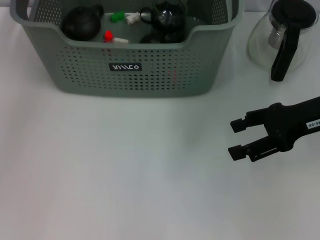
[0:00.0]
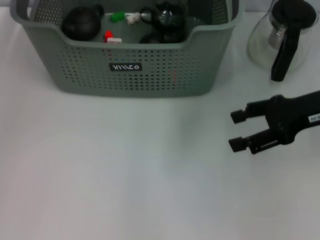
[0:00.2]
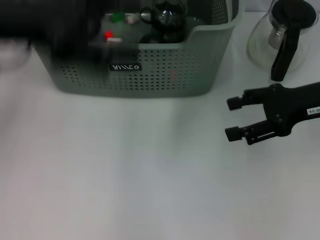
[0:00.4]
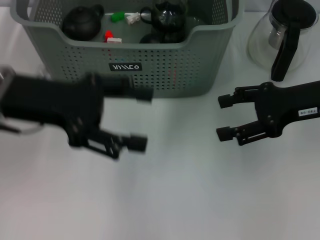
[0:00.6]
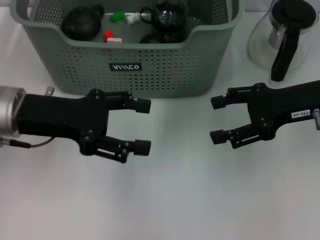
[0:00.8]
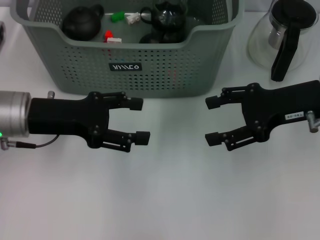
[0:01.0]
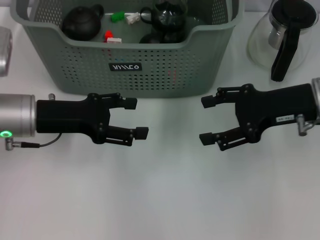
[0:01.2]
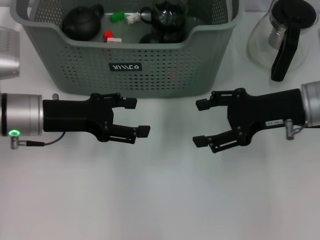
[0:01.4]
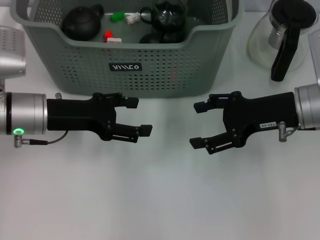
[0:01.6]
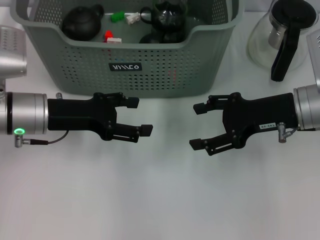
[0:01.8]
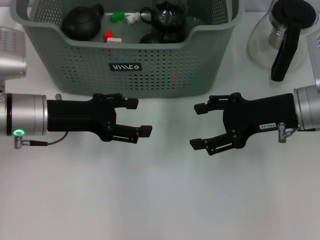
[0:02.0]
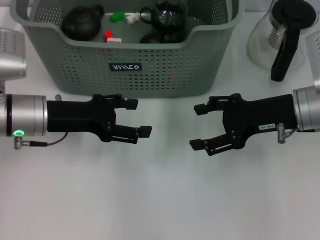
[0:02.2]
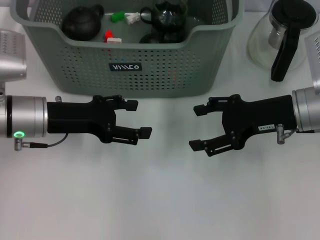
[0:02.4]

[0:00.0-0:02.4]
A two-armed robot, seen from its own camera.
Task of the whole recording: pick up the teacup on the table and place it into the storage bin, pick up the block on the table and place it into the storage bin.
0:00.0 to 0:01.2: The left gripper moves downward and backward, roughly 20 cm.
0:01.2 to 0:02.4: The grippers move only a little.

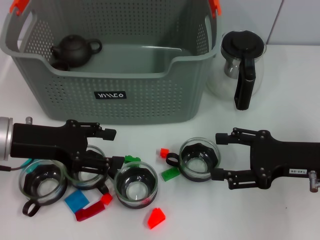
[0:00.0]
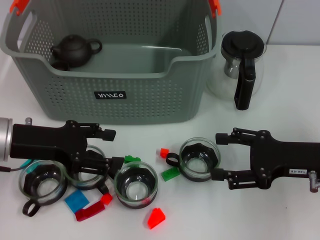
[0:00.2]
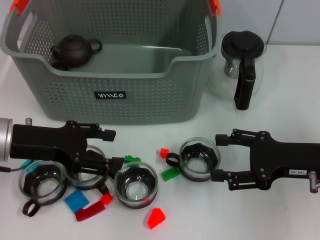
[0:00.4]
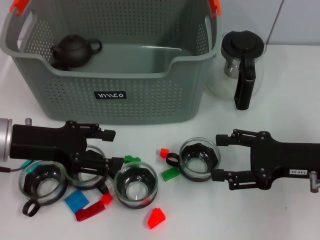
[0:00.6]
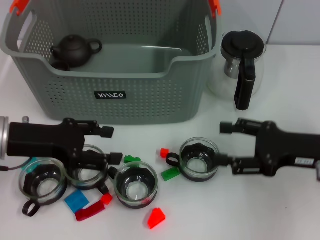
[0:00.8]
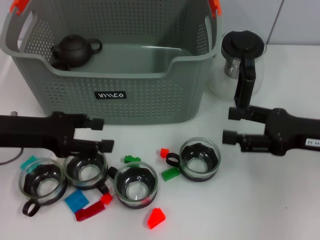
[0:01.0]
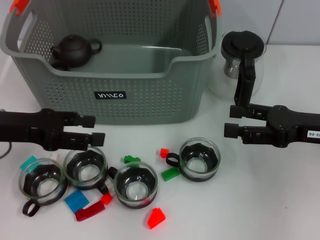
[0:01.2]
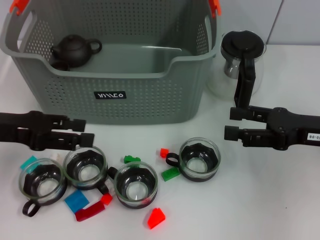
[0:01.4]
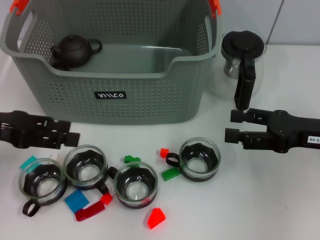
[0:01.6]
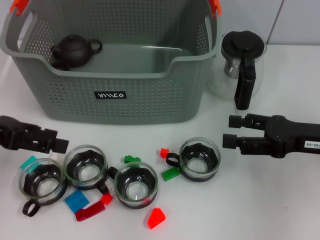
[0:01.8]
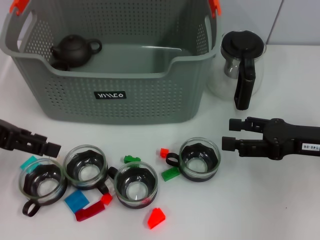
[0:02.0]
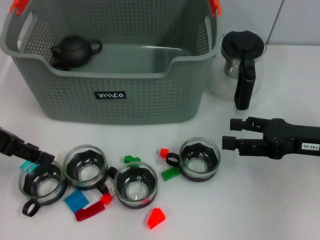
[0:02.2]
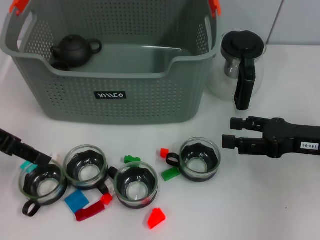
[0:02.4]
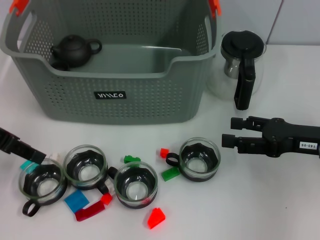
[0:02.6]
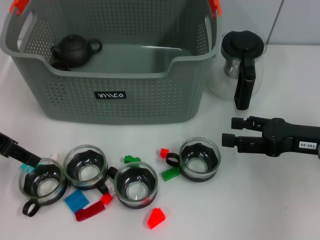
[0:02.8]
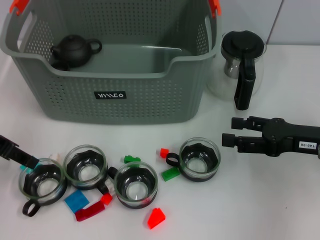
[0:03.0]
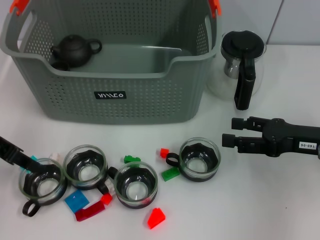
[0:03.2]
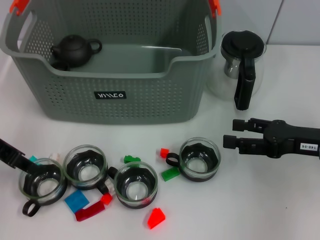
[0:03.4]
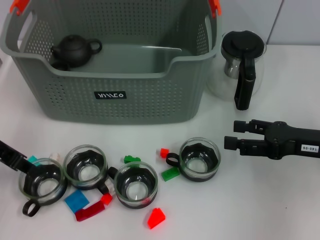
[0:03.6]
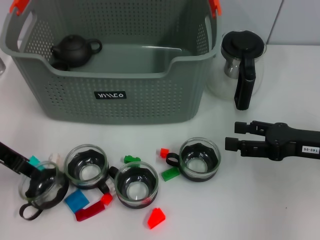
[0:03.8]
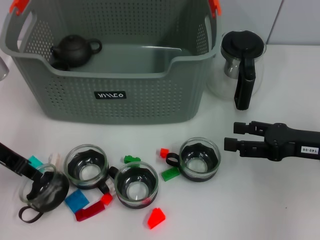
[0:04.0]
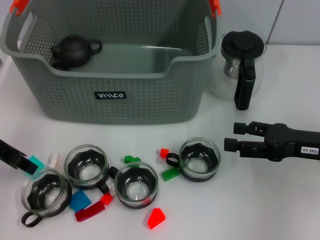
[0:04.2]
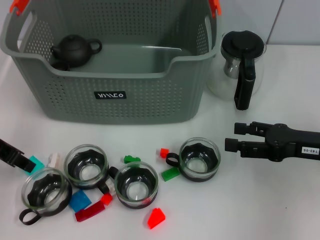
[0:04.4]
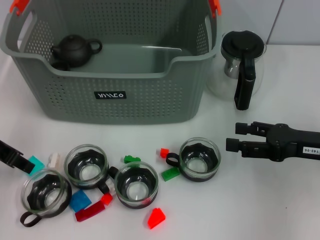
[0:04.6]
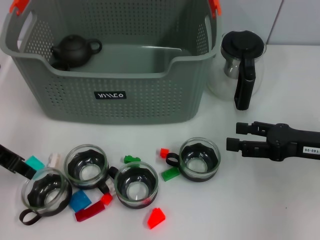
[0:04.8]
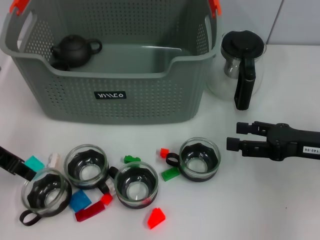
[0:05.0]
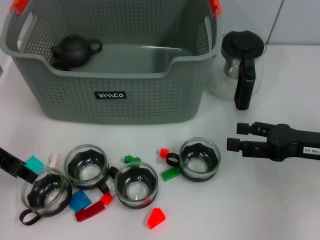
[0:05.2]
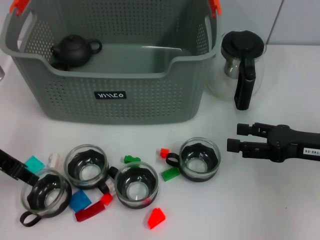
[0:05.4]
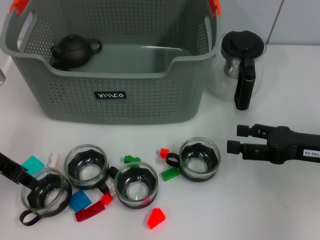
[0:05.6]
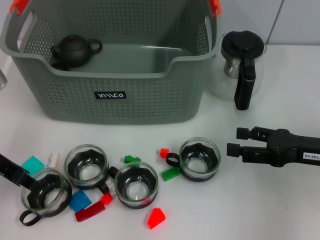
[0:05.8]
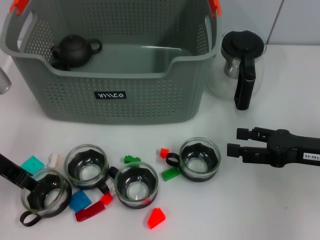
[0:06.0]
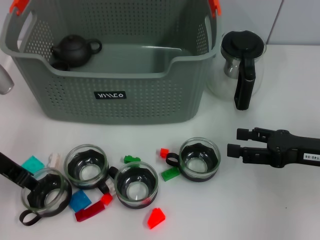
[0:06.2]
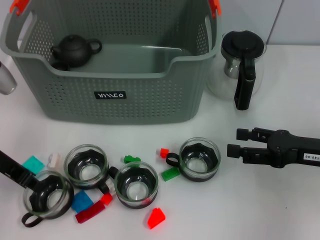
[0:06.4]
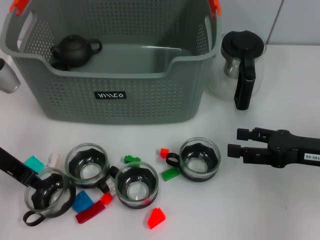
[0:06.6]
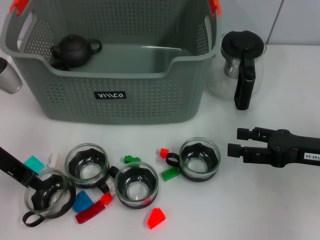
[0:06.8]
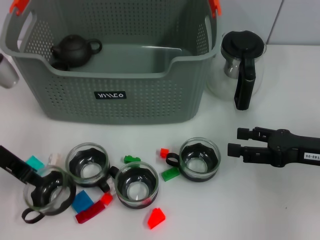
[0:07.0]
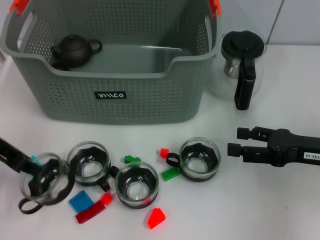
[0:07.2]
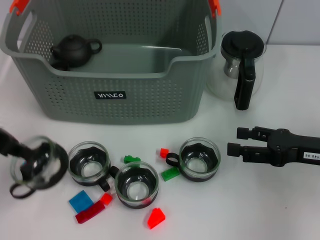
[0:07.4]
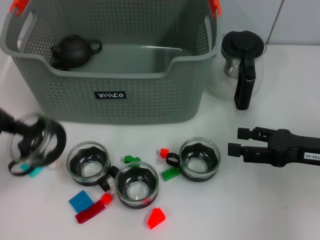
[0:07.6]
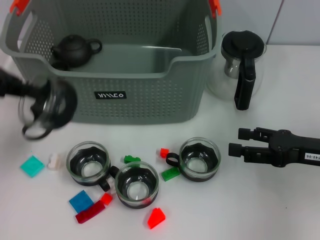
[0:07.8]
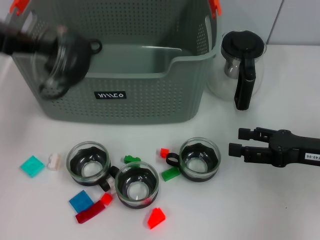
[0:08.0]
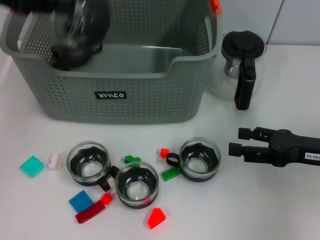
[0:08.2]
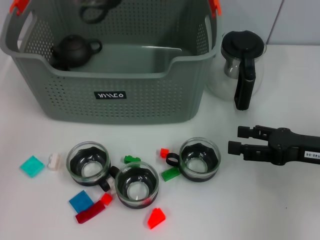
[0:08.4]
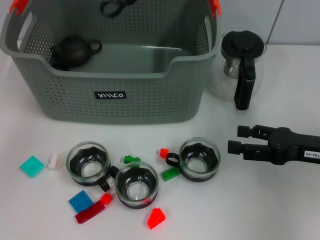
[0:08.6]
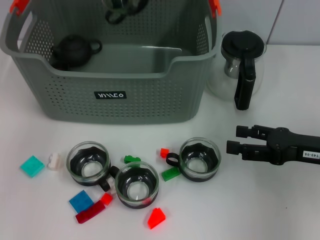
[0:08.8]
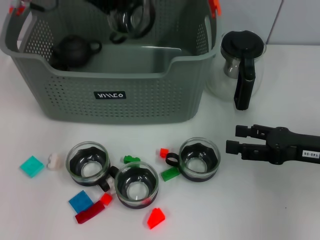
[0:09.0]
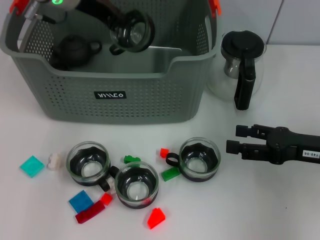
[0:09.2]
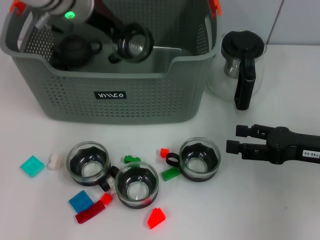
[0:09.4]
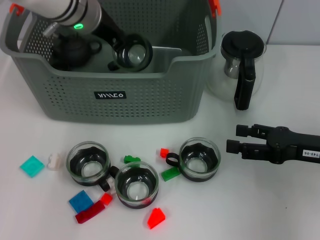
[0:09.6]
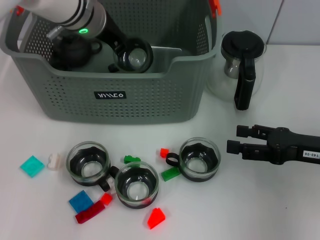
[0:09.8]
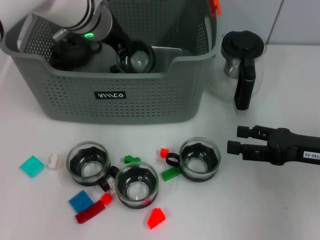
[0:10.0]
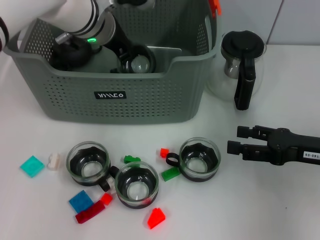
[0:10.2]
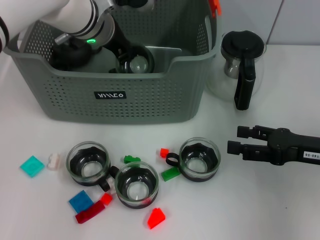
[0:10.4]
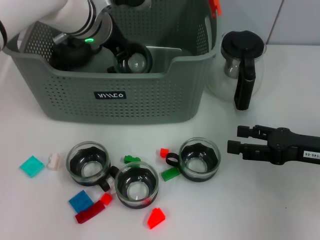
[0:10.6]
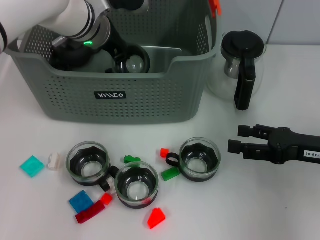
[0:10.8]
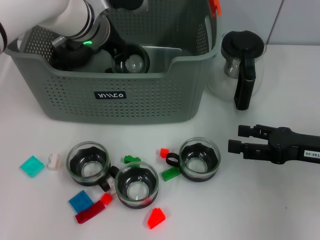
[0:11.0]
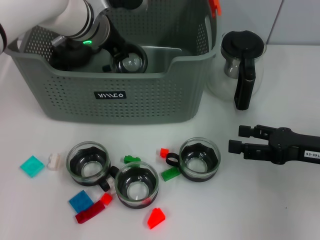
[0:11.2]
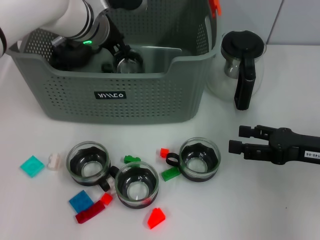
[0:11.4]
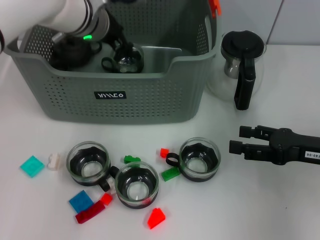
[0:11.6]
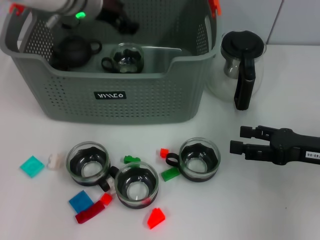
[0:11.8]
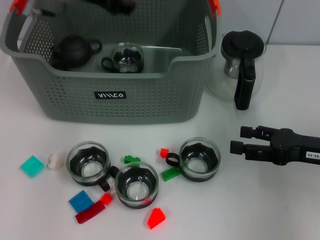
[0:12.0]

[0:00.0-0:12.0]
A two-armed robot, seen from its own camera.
Task of the whole recording: pick up the teacup on the table and place it into the storage bin, pick up the block on the table and place it into the storage bin.
Step, 0:00.0 to 0:07.0: Grasp the cup with left gripper.
Step, 0:07.2 to 0:11.8: Place the cup in the storage box with left gripper.
0:00.0 to 0:01.6: The left gripper heads upward and to the left, covering about 10 cm.
0:03.0 to 0:04.4: The left gripper closes.
0:04.4 to 0:06.0: The grippers move only a little.
0:06.0 to 0:07.6: The left gripper goes roughly 10 cm upward.
0:07.6 to 0:09.0: The left gripper is displaced forward and to the right by about 20 cm.
0:09.0 to 0:10.4: The left gripper is displaced downward and to the right by approximately 10 cm.
0:10.4 to 0:12.0: The left gripper moves upward and to the left, some 10 cm, and opens up.

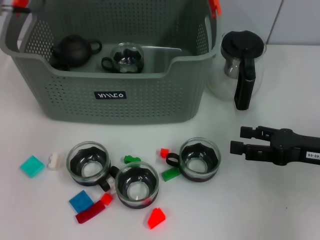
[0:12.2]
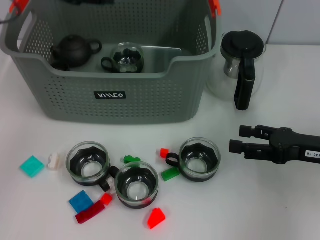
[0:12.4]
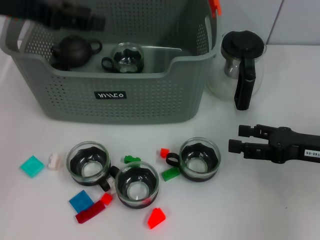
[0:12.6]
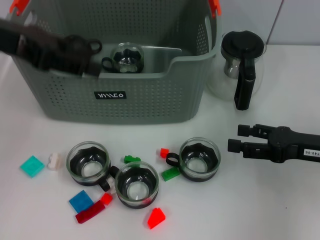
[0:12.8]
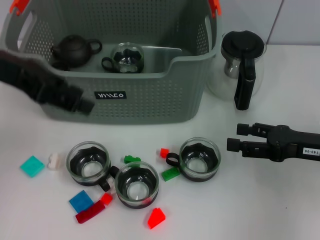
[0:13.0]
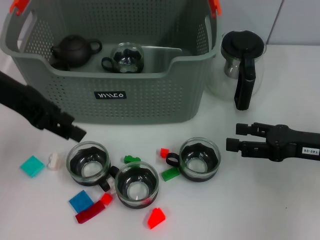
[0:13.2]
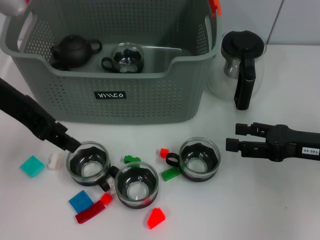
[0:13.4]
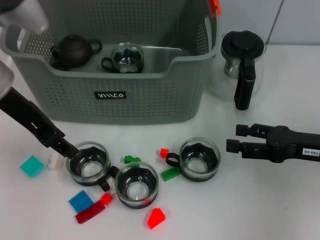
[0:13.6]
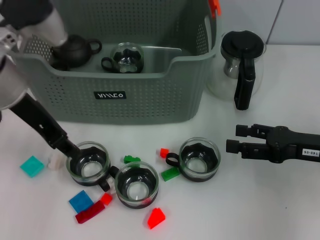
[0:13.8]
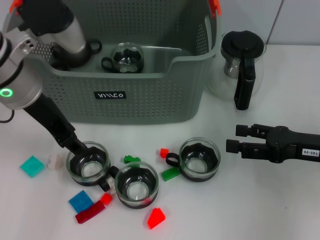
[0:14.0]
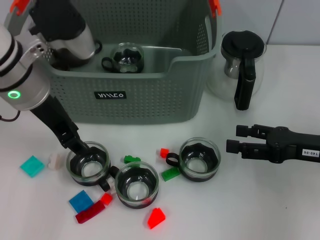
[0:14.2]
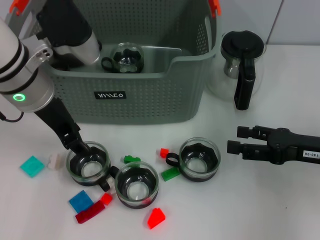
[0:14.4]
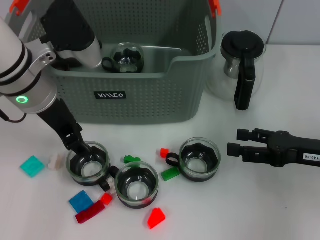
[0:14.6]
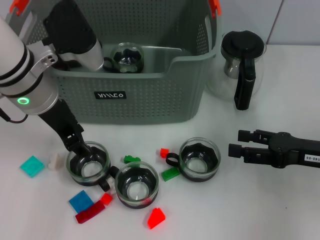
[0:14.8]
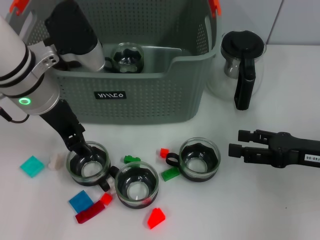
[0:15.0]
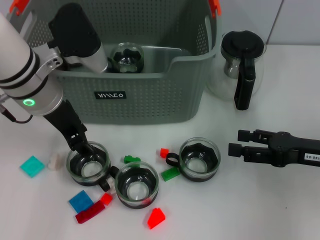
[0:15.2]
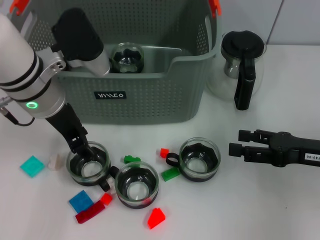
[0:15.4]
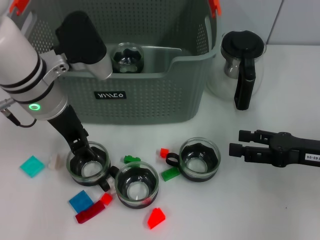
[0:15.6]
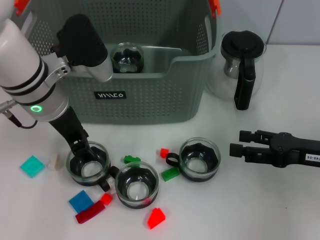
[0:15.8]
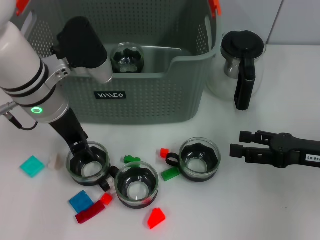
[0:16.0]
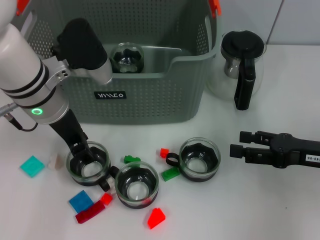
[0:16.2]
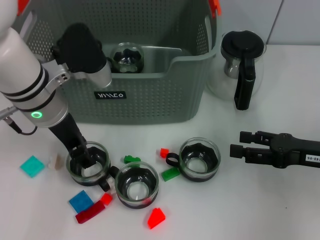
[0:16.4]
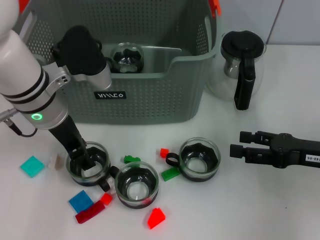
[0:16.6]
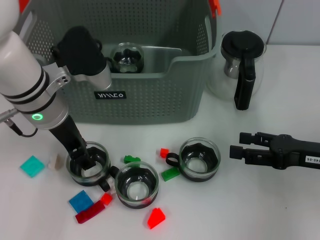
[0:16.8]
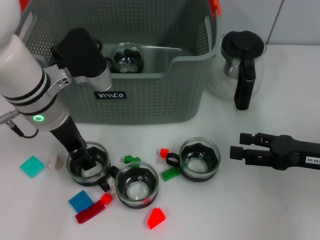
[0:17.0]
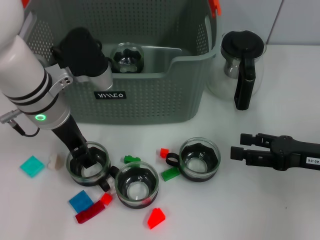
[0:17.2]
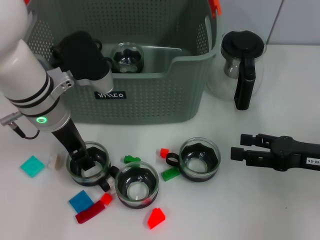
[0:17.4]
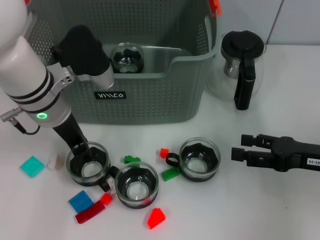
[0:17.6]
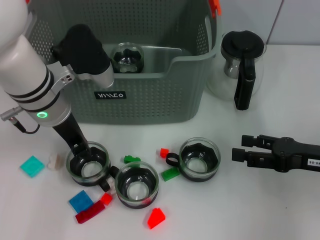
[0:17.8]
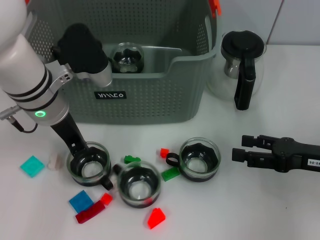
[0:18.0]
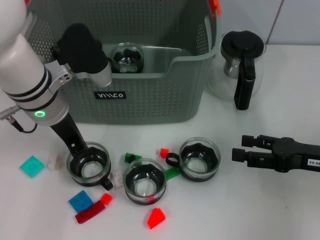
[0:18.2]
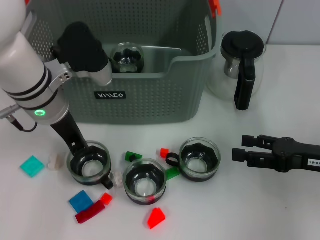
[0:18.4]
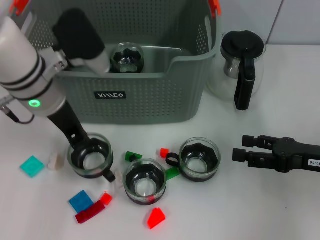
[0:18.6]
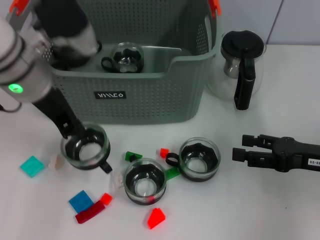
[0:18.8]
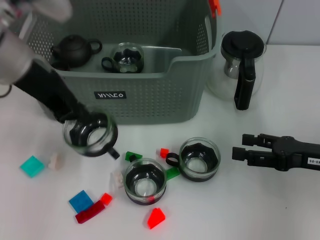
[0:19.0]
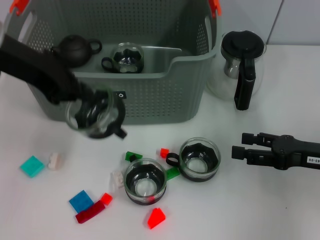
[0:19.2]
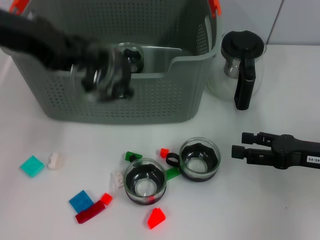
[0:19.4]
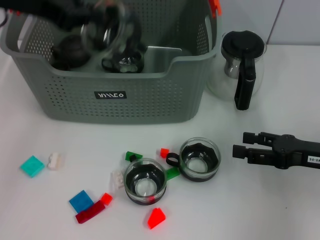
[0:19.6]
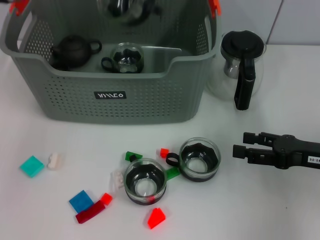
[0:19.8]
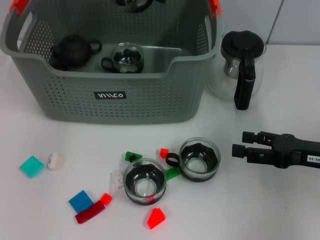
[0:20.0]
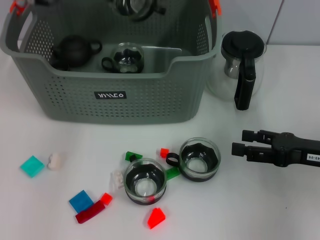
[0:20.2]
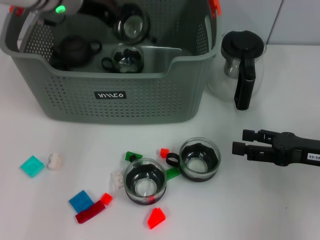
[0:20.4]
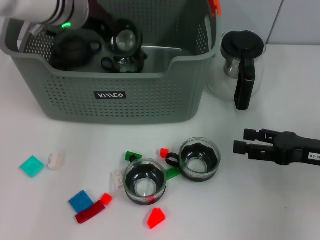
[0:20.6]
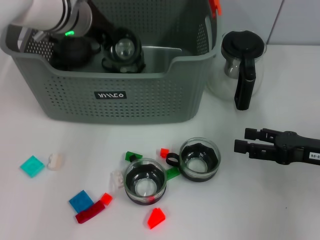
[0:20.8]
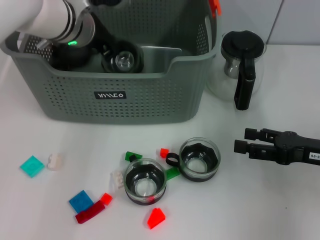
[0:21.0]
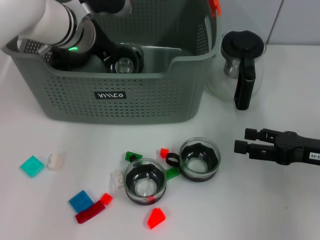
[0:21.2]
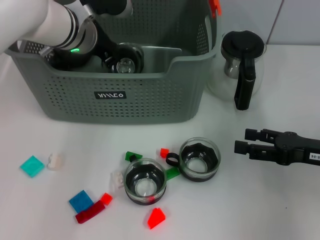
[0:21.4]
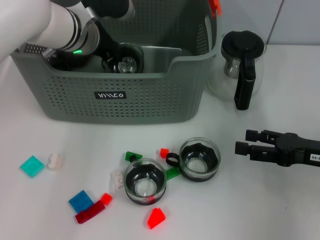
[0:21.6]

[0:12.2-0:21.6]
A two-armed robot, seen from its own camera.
Task of the whole recording: pick up the teacup on the table and place it into the storage bin, pick up the block on the table and place it into the storage bin.
Step, 0:12.2 to 0:18.6: Grasp the cup with left gripper.
0:12.2 to 0:13.8: The left gripper is displaced backward and downward by approximately 10 cm.
0:13.8 to 0:15.4: The left gripper ends up about 5 cm from where it was.
0:15.4 to 0:17.0: The grippers make only small movements.
0:17.0 to 0:18.4: The left gripper closes up.
0:18.4 to 0:20.0: The left gripper heads upward and forward, covering approximately 15 cm.
0:20.0 to 0:21.6: The left gripper goes about 15 cm downward and to the right.
